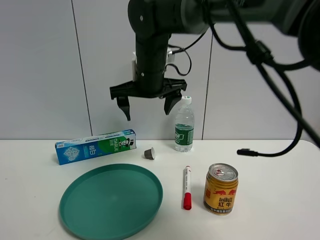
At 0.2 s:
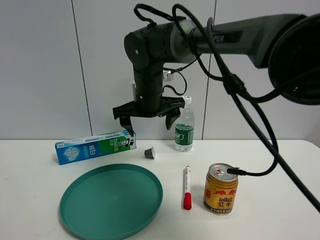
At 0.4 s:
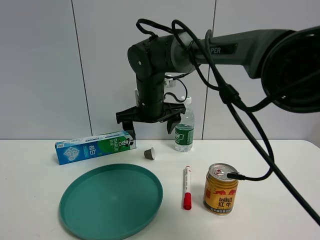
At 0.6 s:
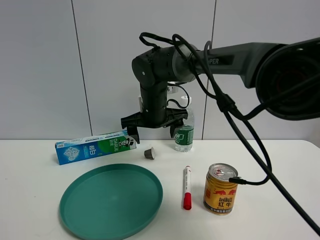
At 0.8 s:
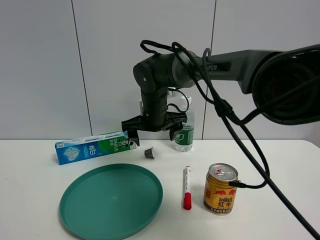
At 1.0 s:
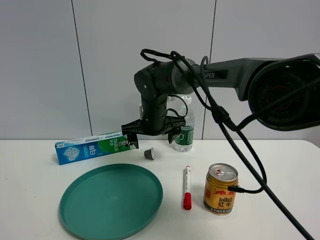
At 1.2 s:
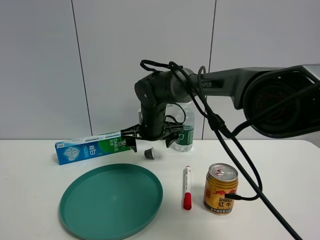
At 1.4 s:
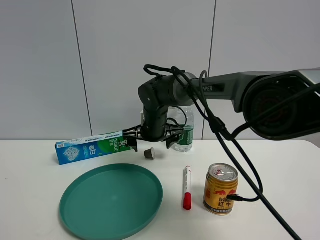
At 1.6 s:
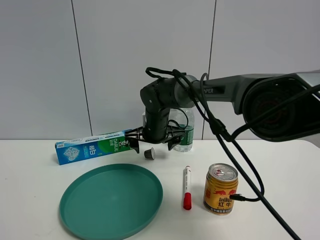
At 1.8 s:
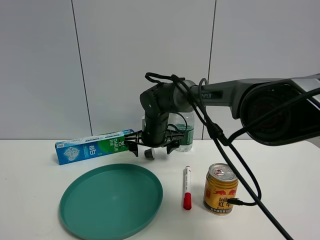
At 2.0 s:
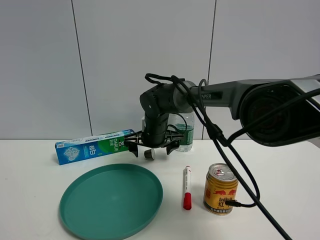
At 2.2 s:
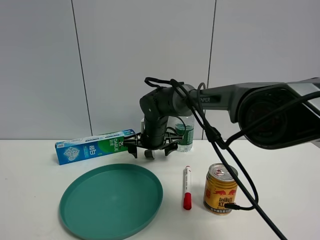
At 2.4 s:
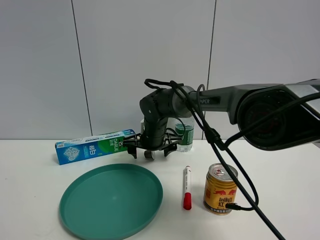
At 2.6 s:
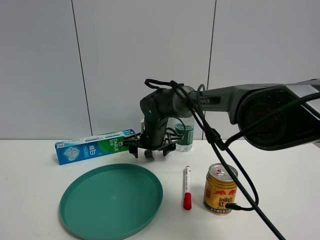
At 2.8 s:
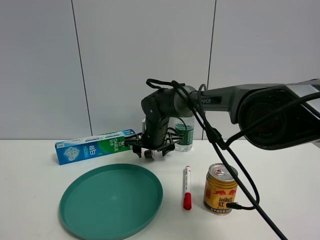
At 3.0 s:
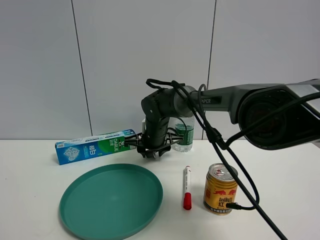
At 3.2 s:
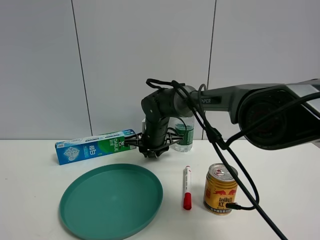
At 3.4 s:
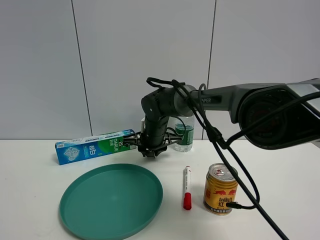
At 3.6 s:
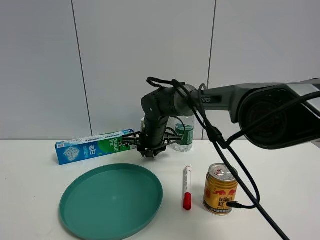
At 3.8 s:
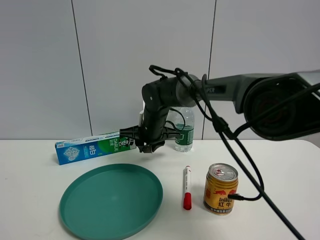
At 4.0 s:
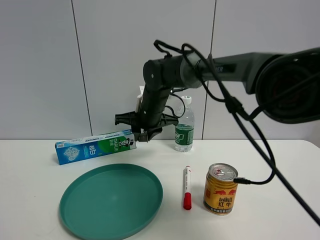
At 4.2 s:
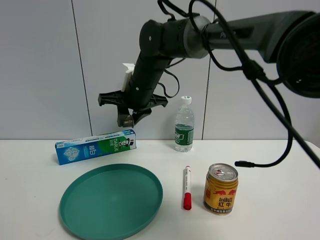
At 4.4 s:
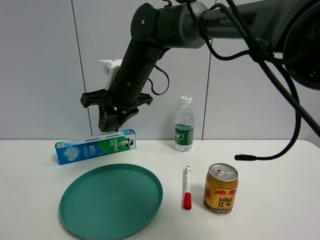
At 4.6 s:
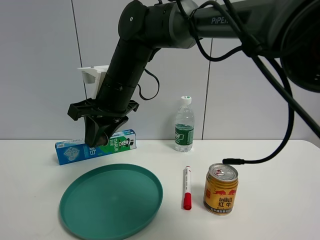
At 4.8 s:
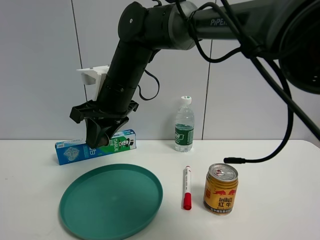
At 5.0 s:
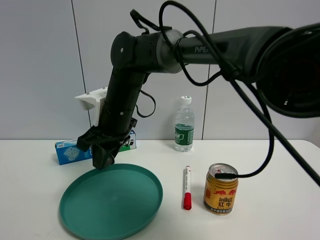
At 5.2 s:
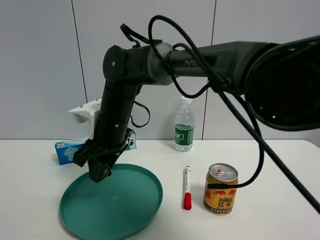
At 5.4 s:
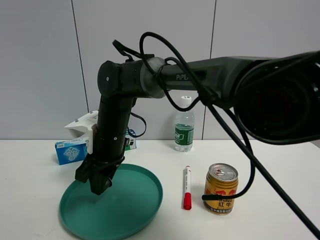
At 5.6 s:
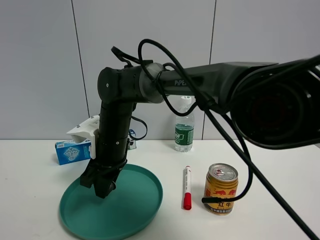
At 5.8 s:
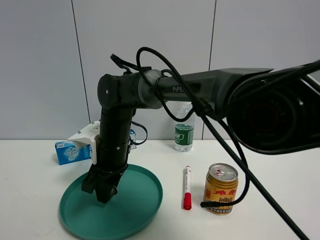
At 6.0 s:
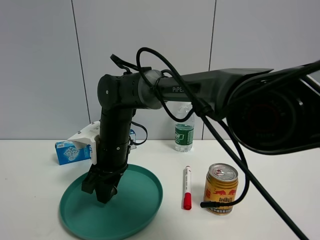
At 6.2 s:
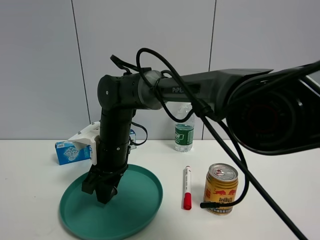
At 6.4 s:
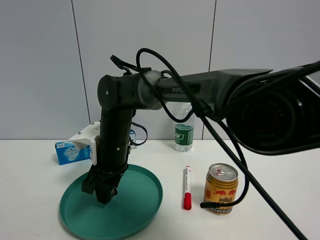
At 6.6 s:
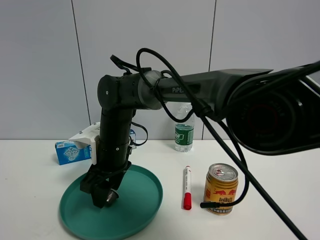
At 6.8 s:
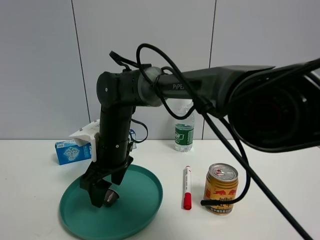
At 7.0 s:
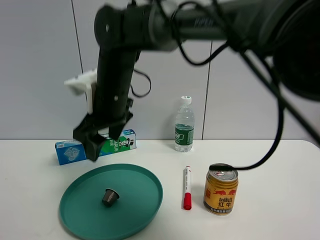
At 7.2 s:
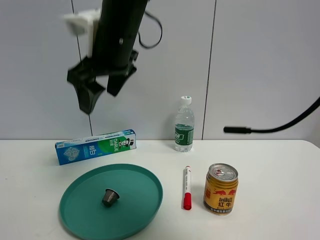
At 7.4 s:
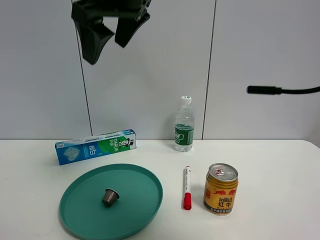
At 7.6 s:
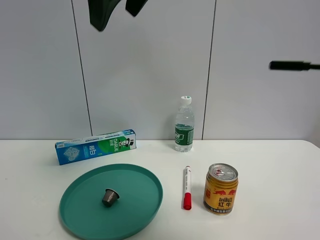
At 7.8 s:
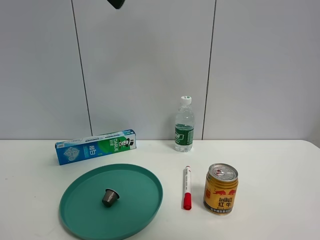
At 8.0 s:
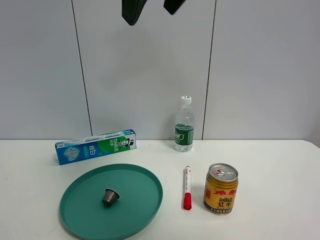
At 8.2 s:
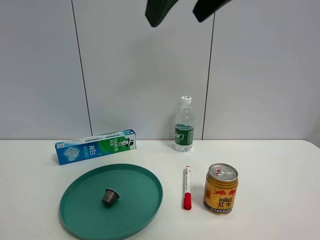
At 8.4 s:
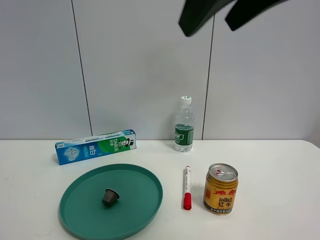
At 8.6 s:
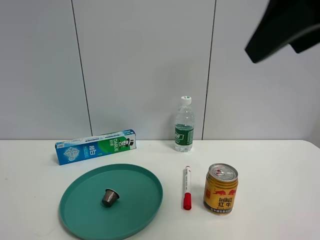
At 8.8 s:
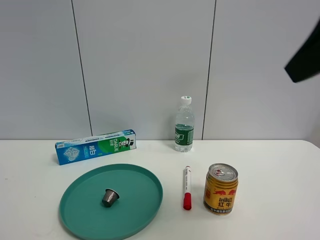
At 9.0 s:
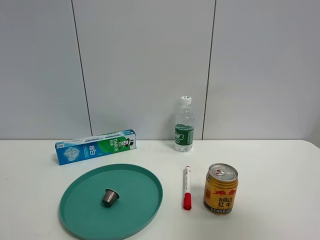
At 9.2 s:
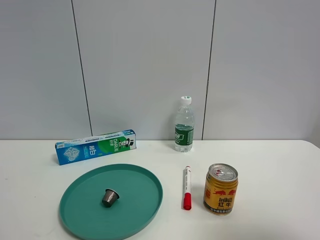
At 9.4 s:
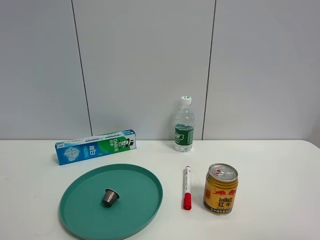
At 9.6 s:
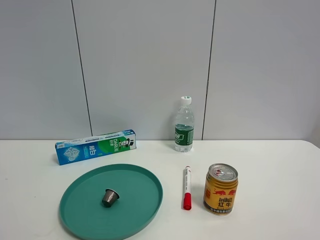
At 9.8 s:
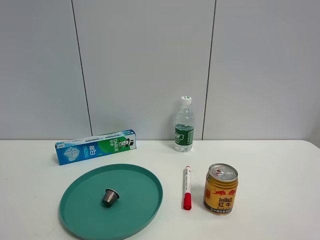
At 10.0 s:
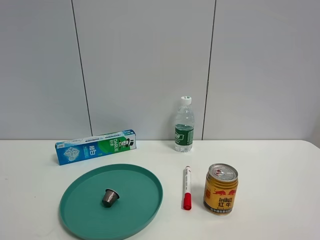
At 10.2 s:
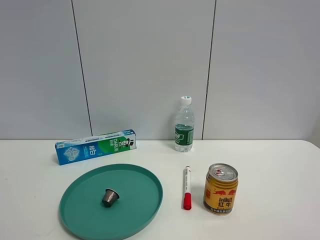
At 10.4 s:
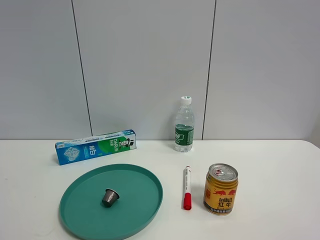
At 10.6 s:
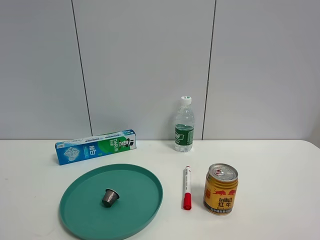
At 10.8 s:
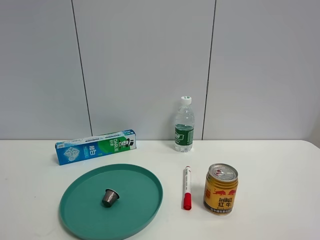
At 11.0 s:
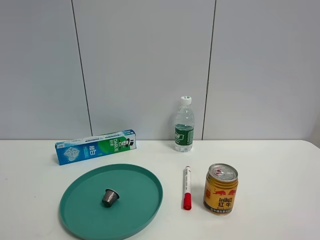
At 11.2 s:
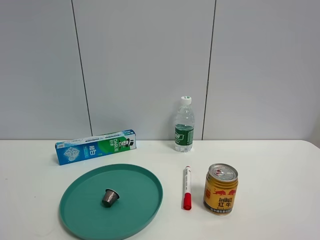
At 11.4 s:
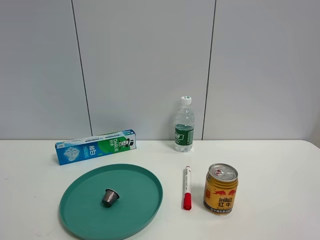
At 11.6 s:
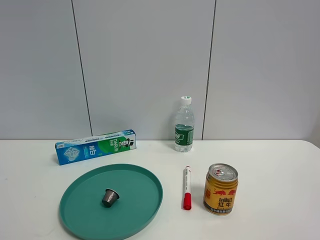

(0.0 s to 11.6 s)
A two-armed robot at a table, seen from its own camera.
Task of the whole recording: the gripper move the object.
Step, 0.0 s - 3.2 s: Grasp the coffee capsule with the right gripper.
Step, 3.4 s - 6.8 s: Place the coffee capsule into the green plate with the right gripper.
0.0 s - 1.4 s: The right gripper heads downward and forward, covering some 15 cm.
1.4 s - 2.8 s: The right gripper closes up.
2.8 s - 4.4 s: The right gripper shifts about 15 cm upward and backward, and closes up.
4.4 s - 5.8 s: The right gripper goes roughly 10 cm downward.
5.8 s - 7.2 s: The right gripper travels upward by some 20 cm, and opens its fingers.
7.2 s - 8.8 s: The right gripper travels to the right and backward by about 35 cm.
8.8 s - 10.2 s: The right gripper goes some 20 cm backward, downward and to the right.
10.2 s - 11.6 s: The two grippers keep their place.

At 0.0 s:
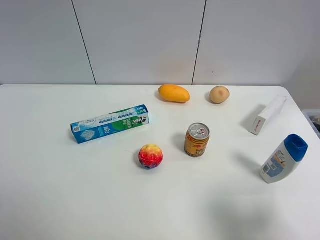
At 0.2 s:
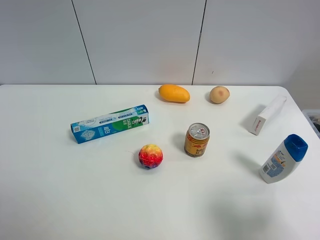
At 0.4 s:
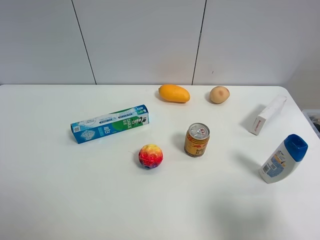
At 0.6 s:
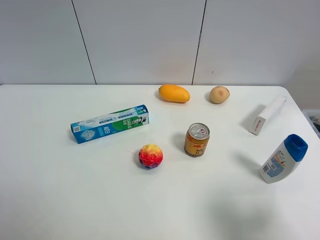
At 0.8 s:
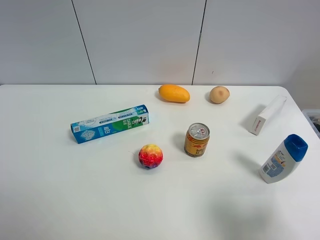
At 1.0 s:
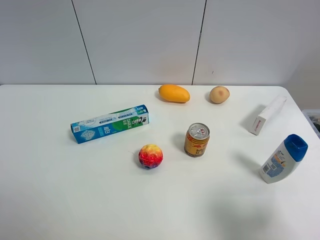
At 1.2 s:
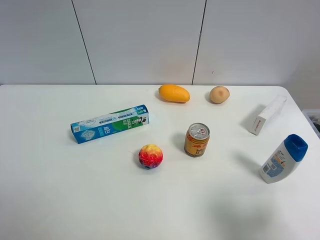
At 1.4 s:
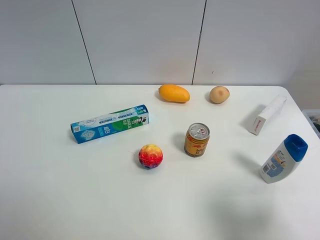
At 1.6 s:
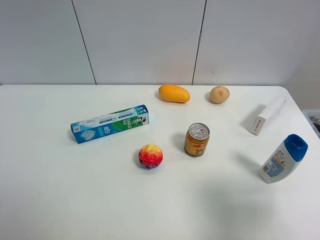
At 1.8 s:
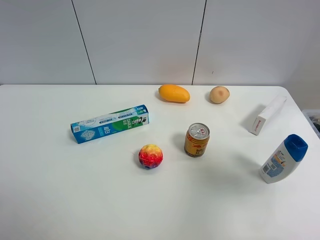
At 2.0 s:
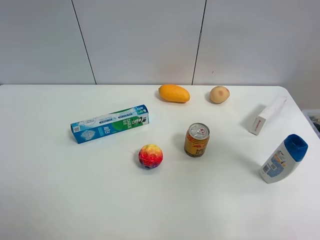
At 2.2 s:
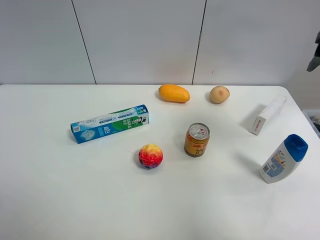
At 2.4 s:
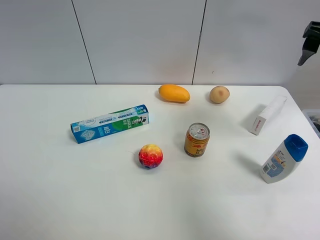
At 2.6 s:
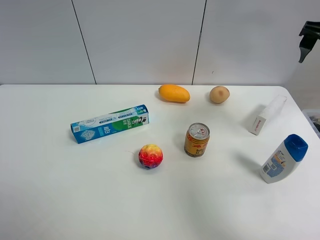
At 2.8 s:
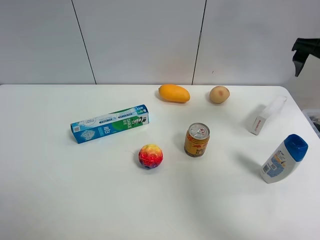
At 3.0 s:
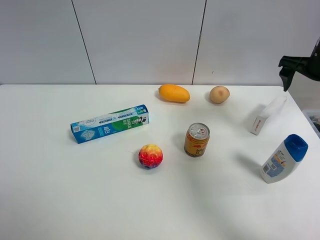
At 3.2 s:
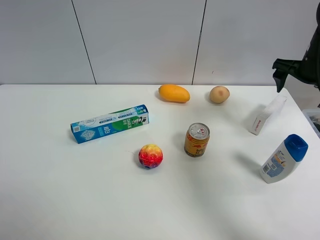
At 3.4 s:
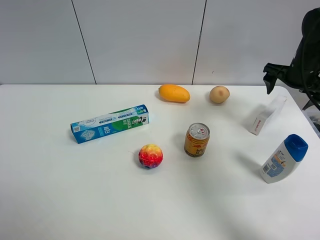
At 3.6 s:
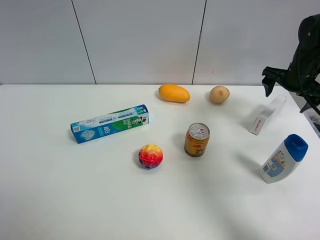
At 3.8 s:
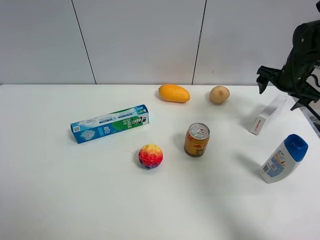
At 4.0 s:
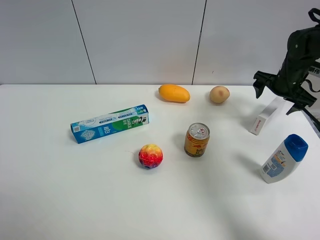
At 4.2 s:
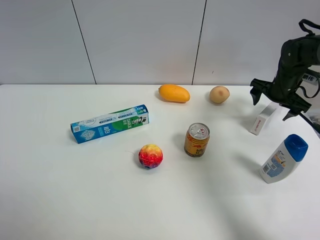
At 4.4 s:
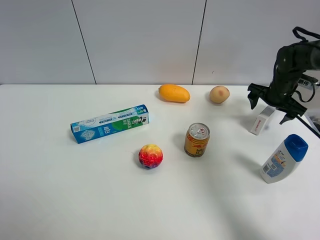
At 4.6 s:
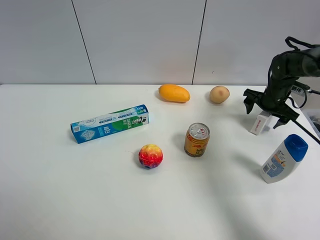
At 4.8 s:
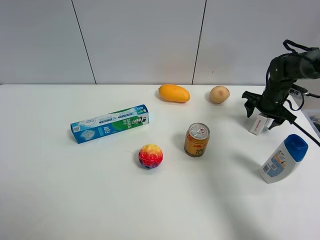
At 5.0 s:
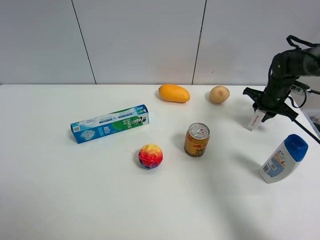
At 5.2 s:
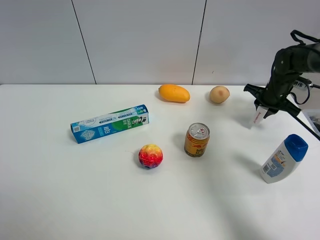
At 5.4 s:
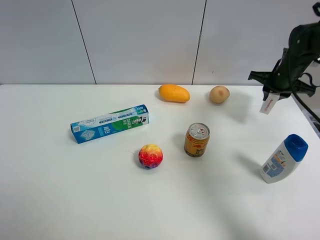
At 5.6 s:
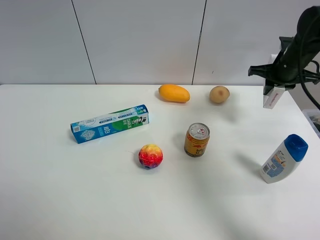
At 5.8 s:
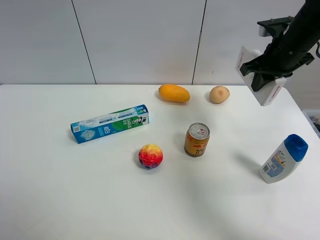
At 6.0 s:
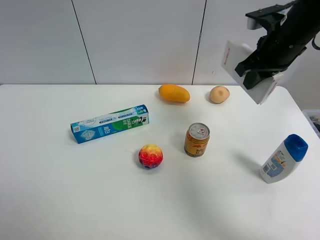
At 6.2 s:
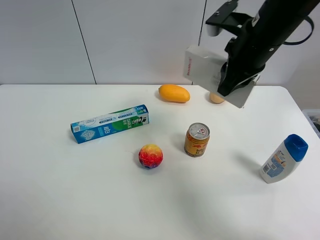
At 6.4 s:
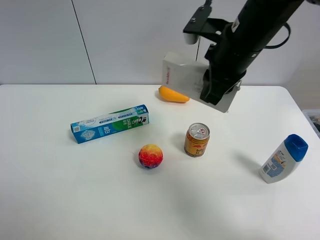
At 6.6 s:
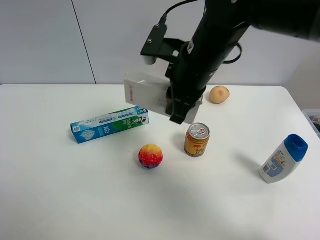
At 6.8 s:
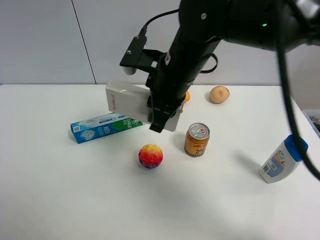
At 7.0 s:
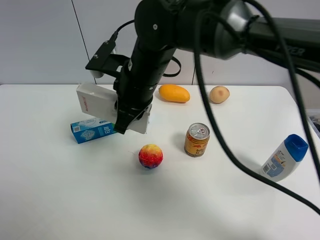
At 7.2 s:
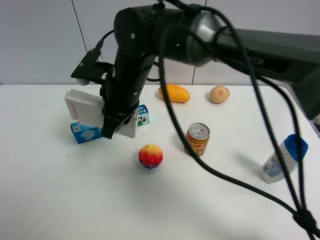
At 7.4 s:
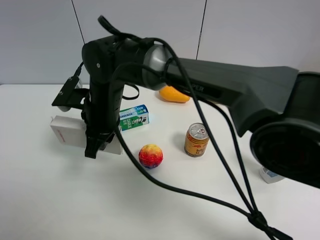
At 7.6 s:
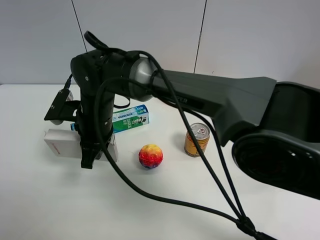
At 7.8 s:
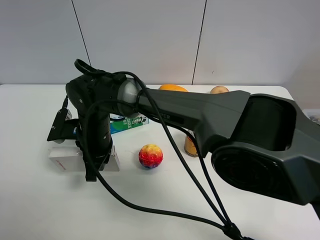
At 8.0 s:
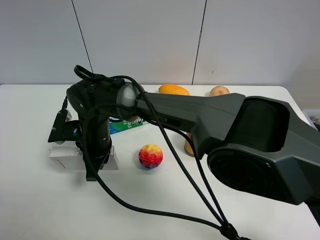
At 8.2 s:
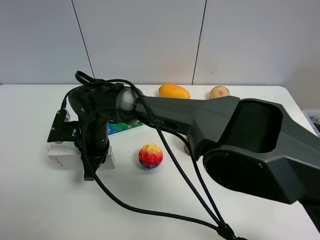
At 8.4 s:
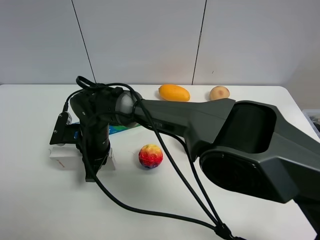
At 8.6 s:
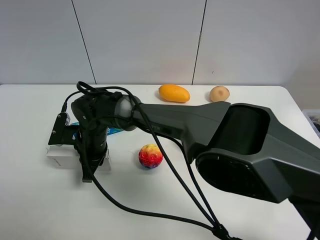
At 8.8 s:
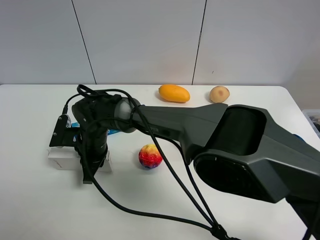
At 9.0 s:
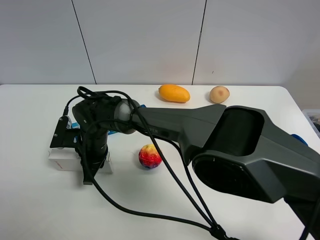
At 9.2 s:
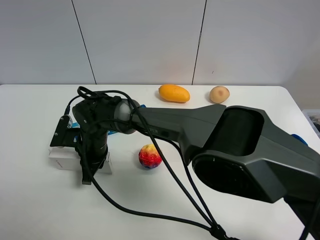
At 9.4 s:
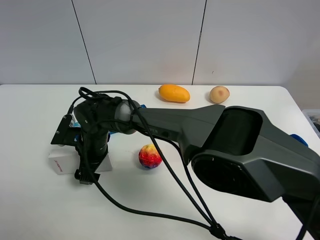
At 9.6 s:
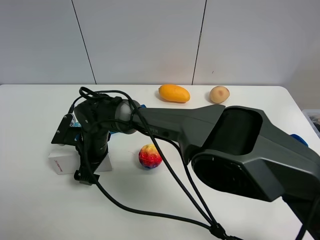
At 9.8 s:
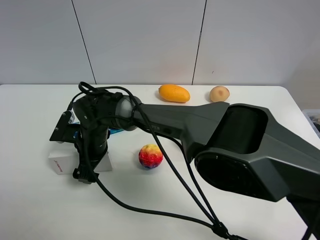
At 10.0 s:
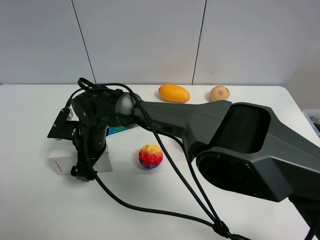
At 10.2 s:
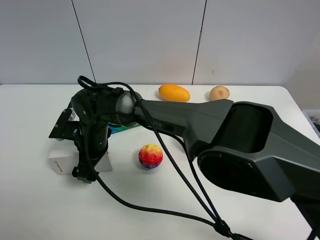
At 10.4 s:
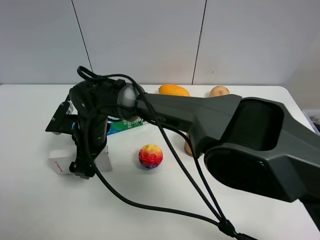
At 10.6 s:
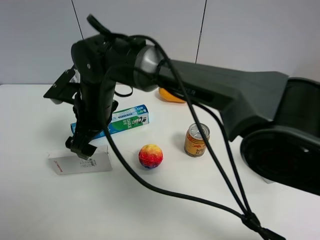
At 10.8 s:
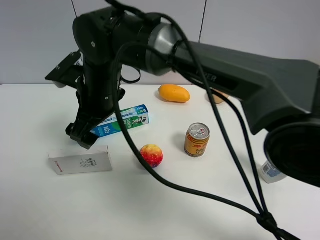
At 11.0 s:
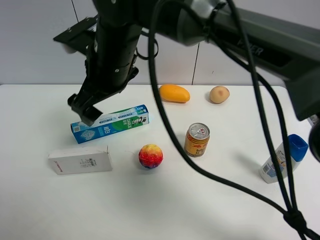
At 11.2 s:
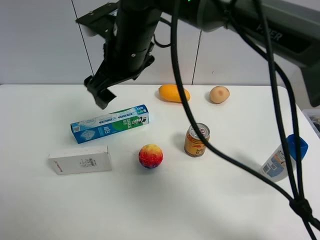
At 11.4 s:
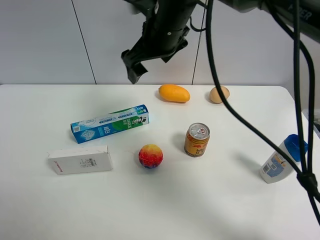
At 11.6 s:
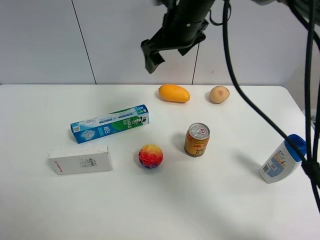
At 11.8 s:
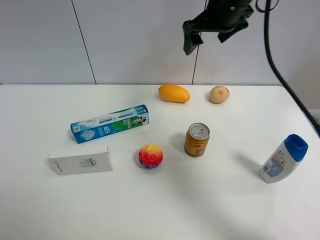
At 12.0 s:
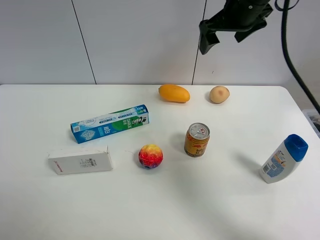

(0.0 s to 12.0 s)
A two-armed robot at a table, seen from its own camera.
Task of the whole recording: the gripper move the object.
Step, 0.0 s - 4.8 s: Grasp the USB box with the right gripper.
Step, 5.0 s - 10.4 s: Place the USB box on the table with the right gripper.
1.6 s - 3.0 s: The right gripper heads forward, covering some 35 cm.
3.0 s - 4.4 s: The right gripper moves downward and forward, approximately 15 cm.
4.4 s - 6.0 s: The right gripper goes approximately 25 cm upward, to the left and backward, and closes.
6.0 s - 7.6 s: The right gripper is displaced to the left by roughly 35 cm.
7.6 s - 9.0 s: The right gripper shifts some 10 cm downward.
9.0 s - 10.4 s: The right gripper opens its fingers.
10.4 s - 12.0 s: The right gripper travels to the right, upward and forward by some 40 cm.
